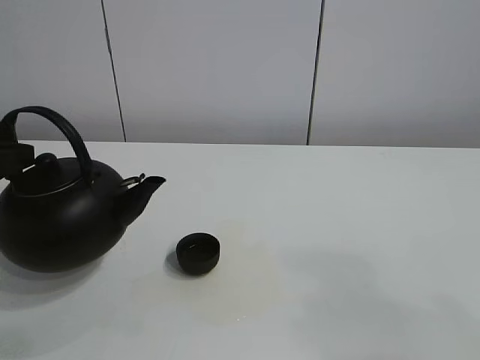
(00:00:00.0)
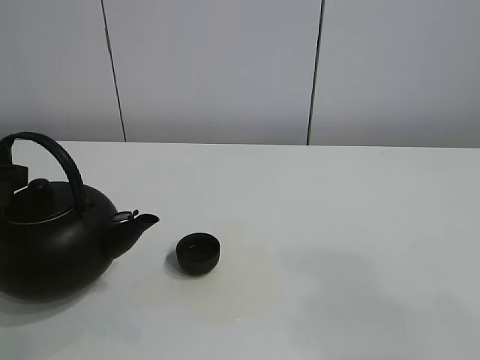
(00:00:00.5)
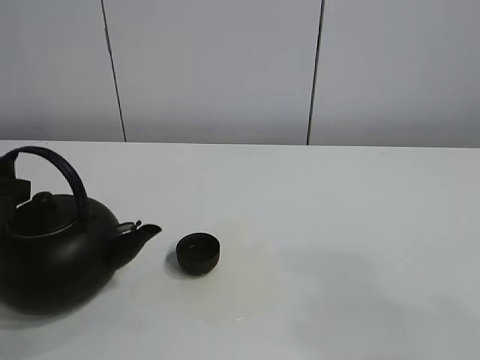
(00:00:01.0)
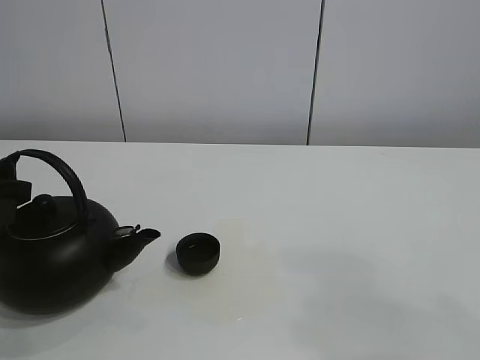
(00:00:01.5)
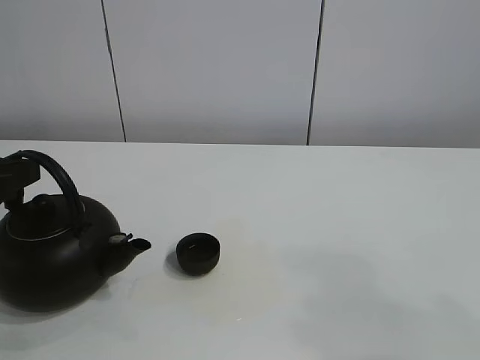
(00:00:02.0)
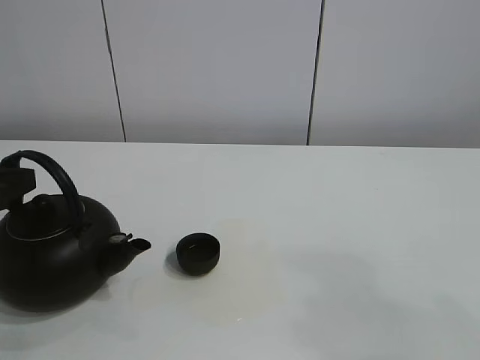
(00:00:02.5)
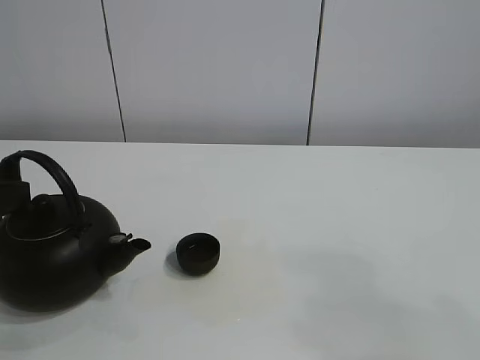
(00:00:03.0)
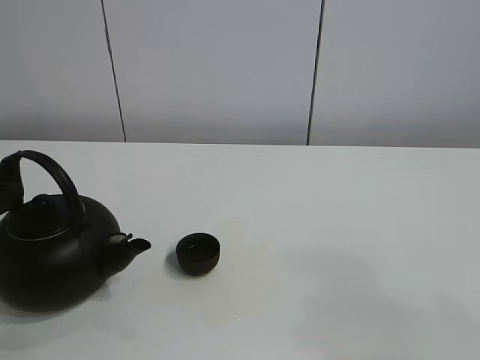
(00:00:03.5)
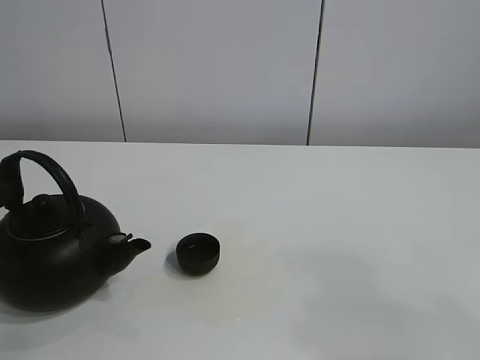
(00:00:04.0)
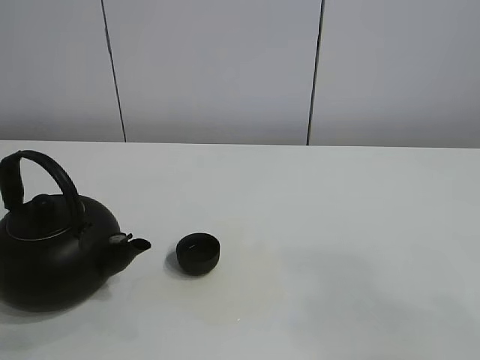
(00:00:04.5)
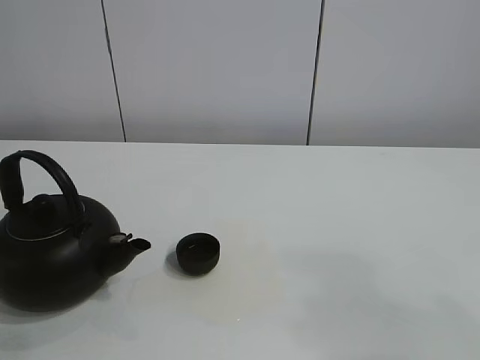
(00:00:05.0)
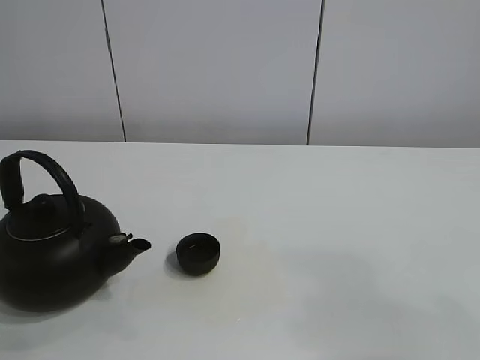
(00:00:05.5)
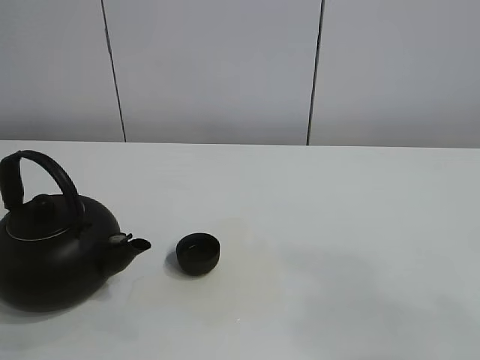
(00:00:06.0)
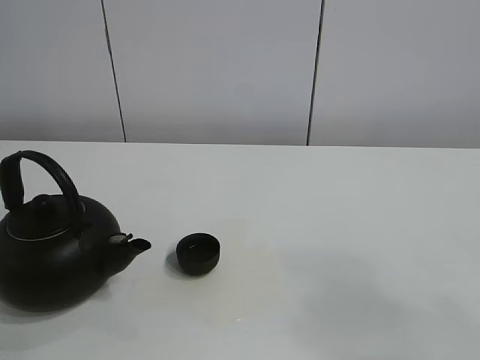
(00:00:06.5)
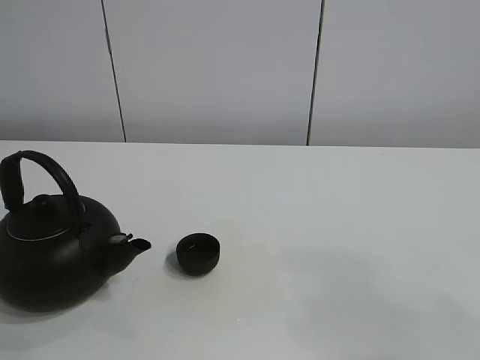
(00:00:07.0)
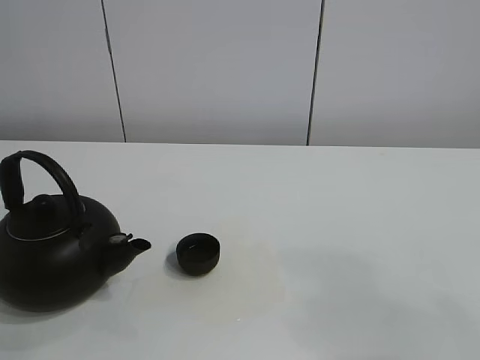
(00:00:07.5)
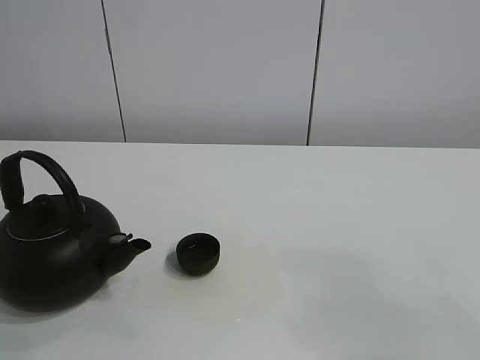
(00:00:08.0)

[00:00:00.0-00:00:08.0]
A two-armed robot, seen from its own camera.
Task of the whole recording: pour tea into the teacup.
00:00:00.0 to 00:00:02.0: The left gripper opens its fingers.
